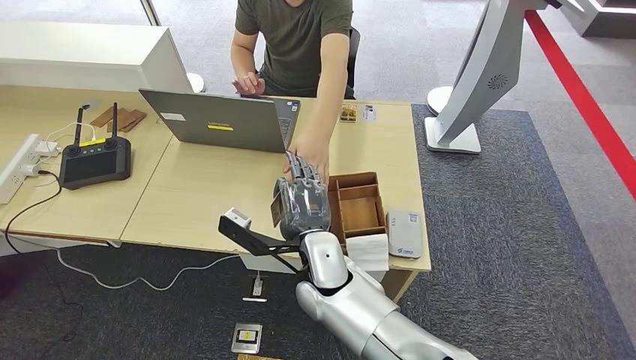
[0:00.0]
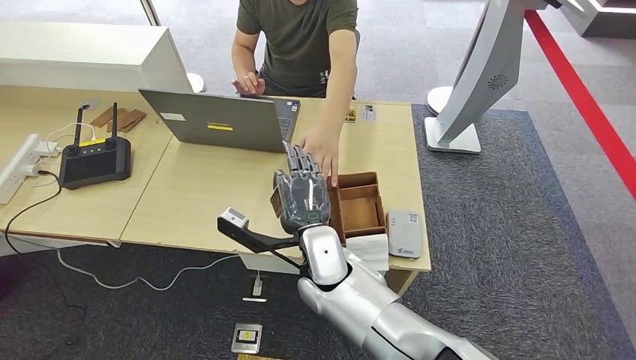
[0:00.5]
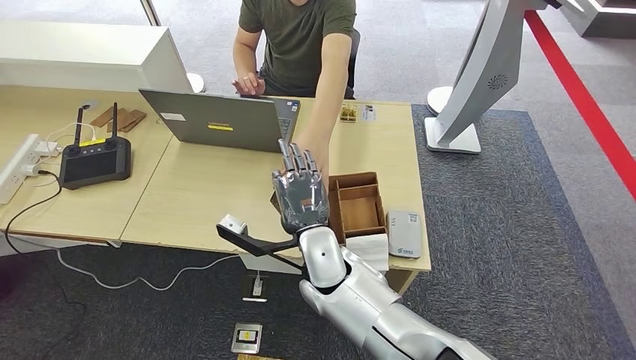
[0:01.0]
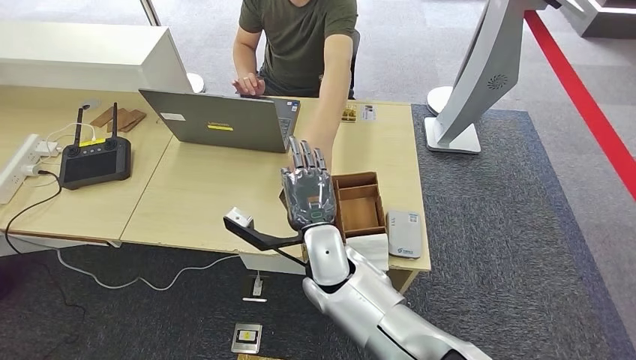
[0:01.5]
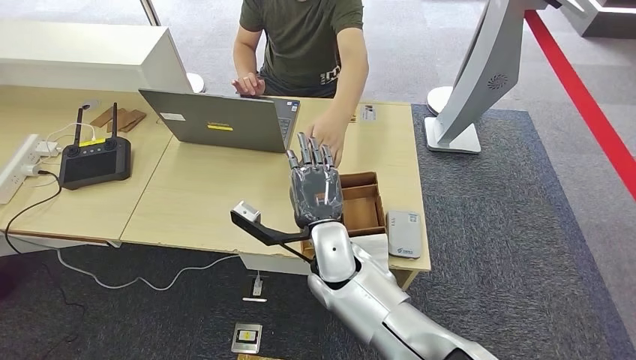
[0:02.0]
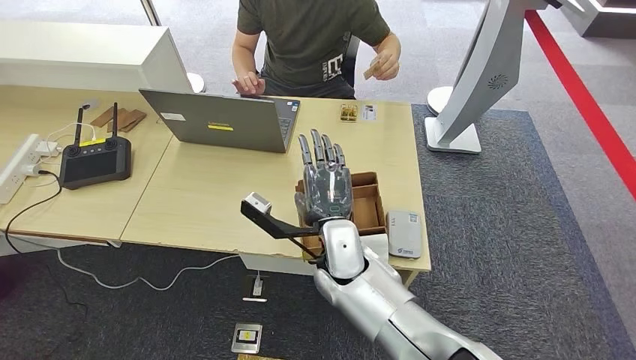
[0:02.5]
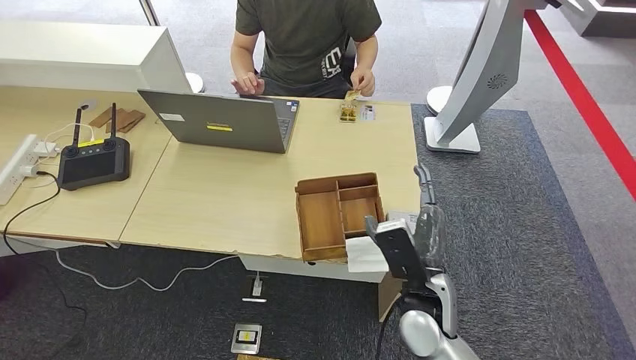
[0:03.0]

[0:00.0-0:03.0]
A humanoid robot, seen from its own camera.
Step, 0:00.0 to 0:03.0: Hand the room key to the person.
0:00.0 to 0:01.5: There are only small adjustments of the hands.
0:01.5 to 0:03.0: The right hand goes roughly 15 cm to the right.
